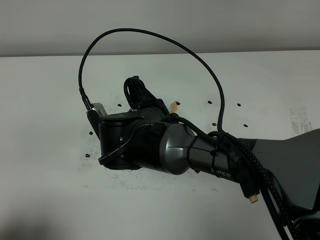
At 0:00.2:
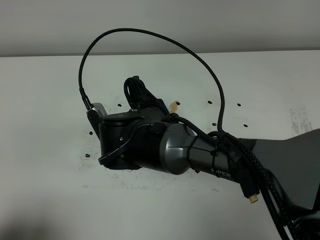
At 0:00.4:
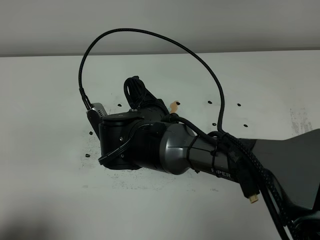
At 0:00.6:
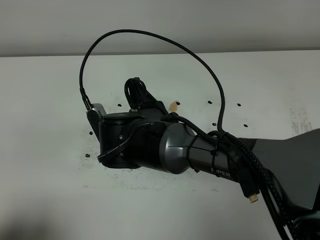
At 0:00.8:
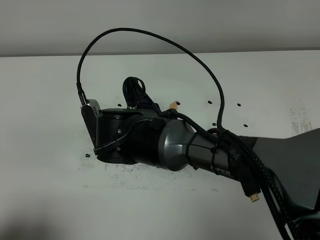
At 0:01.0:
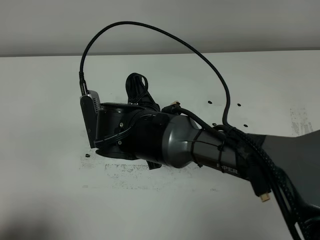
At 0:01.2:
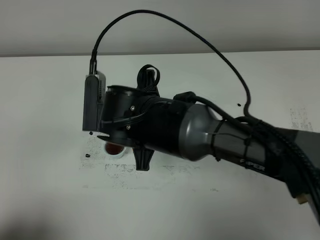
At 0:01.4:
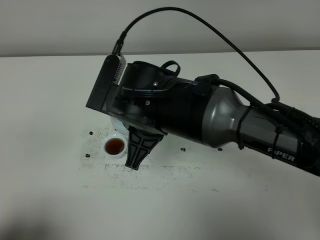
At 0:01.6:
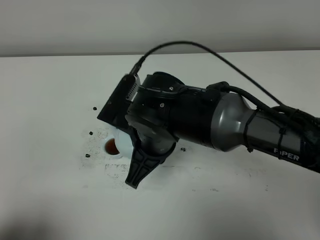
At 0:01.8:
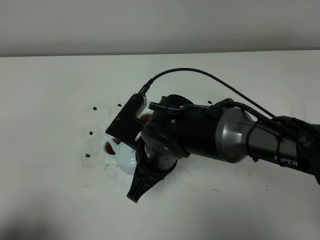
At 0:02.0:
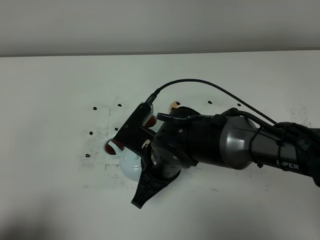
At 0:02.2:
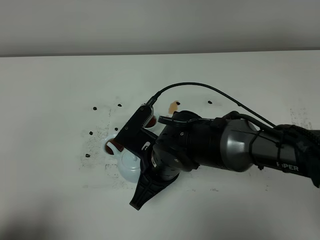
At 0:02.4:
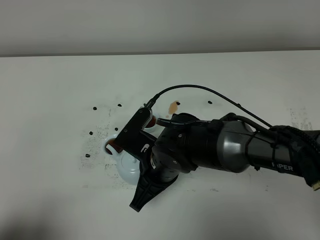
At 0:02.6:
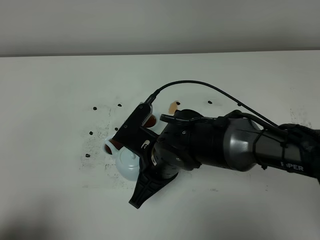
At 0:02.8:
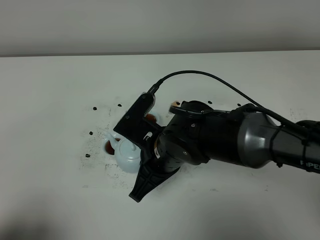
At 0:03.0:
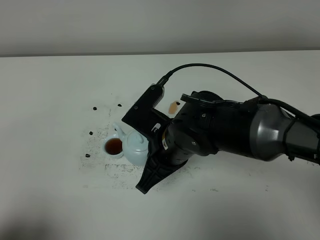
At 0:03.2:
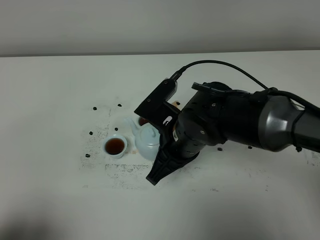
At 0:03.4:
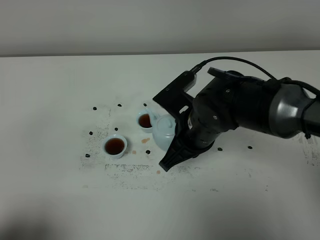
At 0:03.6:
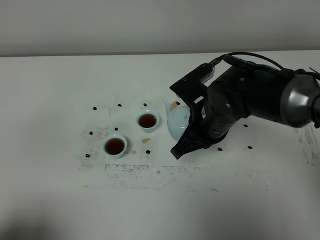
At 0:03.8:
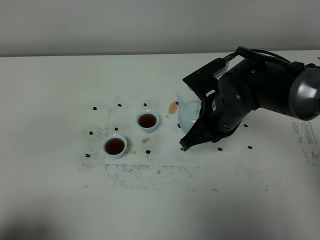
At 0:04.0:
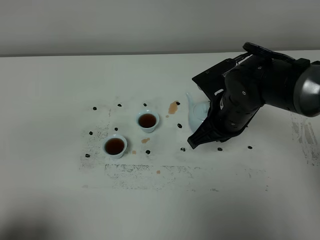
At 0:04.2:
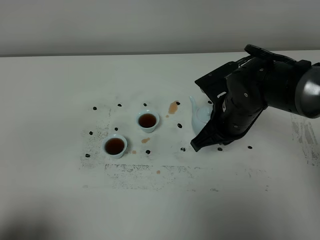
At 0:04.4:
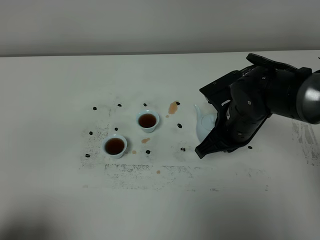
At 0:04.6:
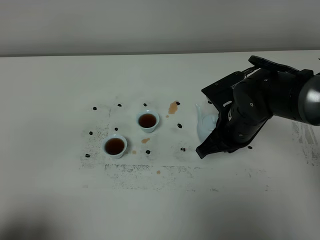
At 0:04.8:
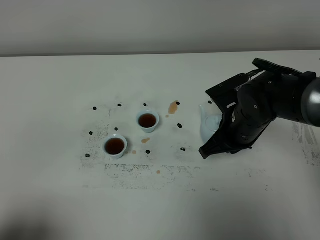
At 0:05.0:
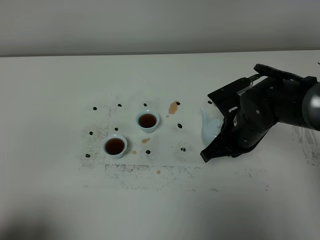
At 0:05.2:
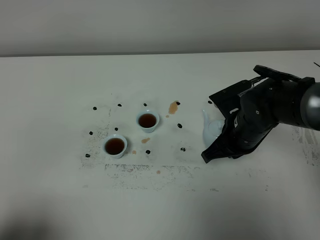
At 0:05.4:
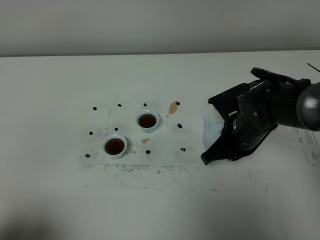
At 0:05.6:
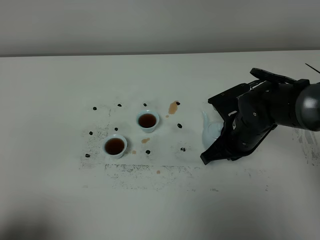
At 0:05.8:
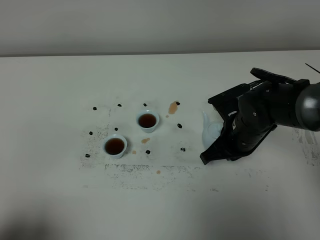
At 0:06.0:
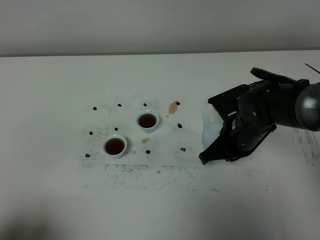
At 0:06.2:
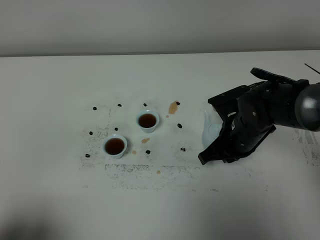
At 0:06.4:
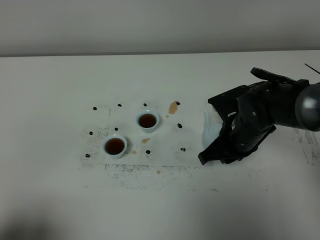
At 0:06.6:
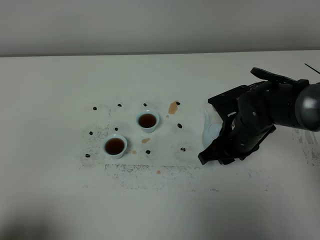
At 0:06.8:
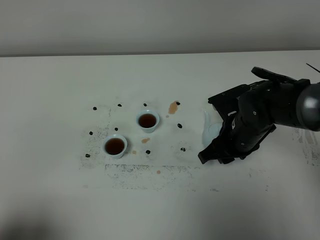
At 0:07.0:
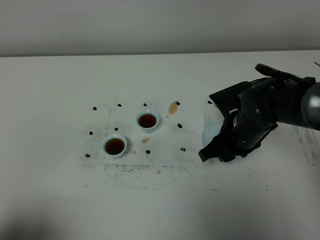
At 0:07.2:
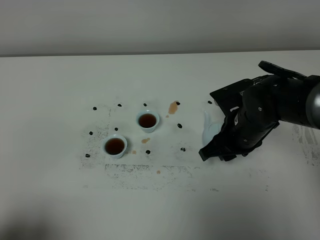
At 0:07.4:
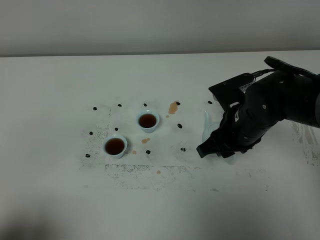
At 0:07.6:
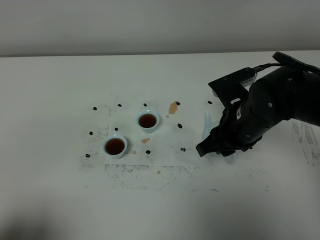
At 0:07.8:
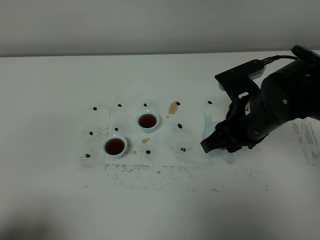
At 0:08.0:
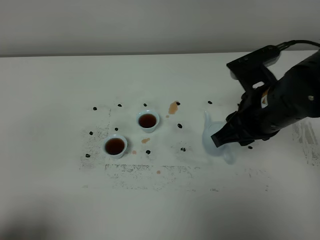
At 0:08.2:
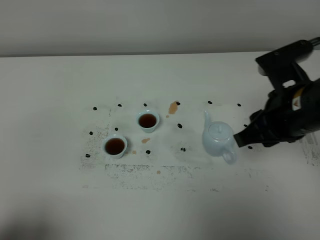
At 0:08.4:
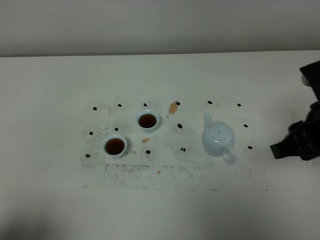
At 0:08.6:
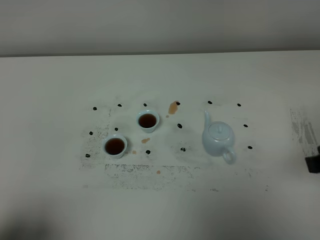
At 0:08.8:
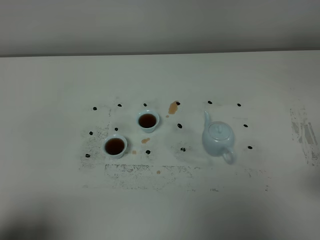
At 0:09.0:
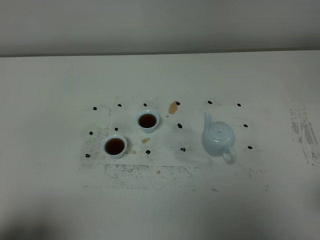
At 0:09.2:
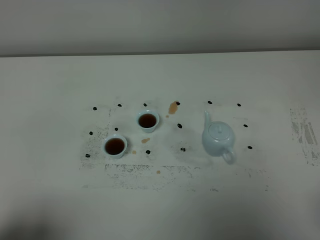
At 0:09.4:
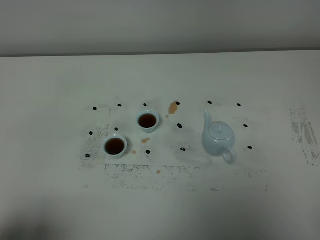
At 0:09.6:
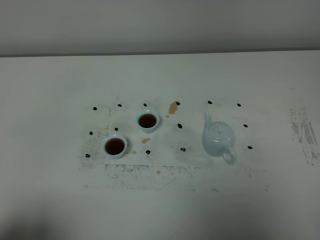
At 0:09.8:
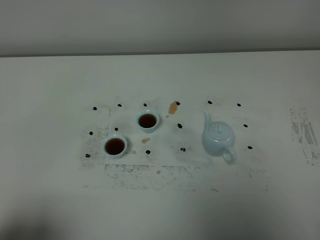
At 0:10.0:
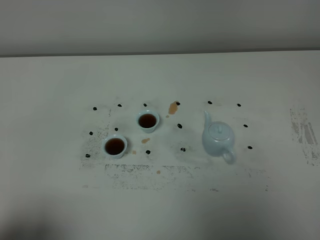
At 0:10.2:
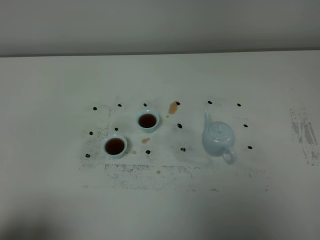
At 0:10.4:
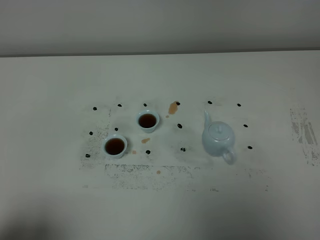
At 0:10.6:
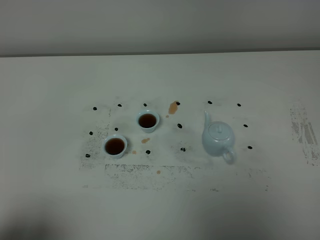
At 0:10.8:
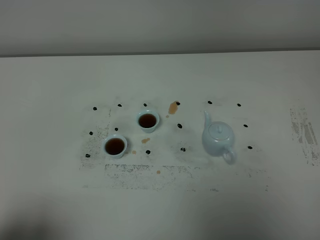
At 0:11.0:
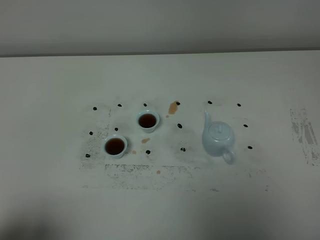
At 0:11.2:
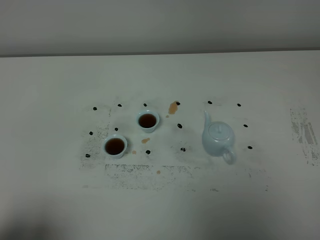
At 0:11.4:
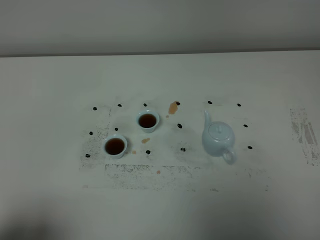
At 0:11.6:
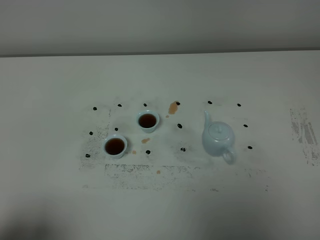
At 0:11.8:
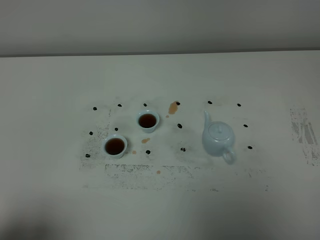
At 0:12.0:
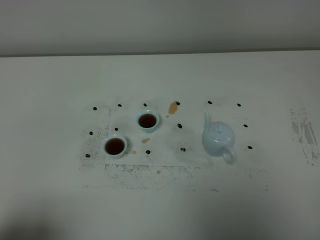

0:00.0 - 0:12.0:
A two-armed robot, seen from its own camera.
Task of the whole recording: grasp the blue porcelain teapot and pour the tea into the two blue porcelain teacups one by one, put the blue porcelain teapot back in its original place.
0:03.0 - 0:04.4: The right gripper moves to the right, approximately 10 cm.
0:04.4 - 0:06.0: The grippers move only a little.
0:06.0 - 0:07.6: The right gripper heads upward, covering roughly 5 cm, and opens up.
0:07.6 - 0:09.0: The right gripper moves backward, to the right and upward, roughly 30 cm.

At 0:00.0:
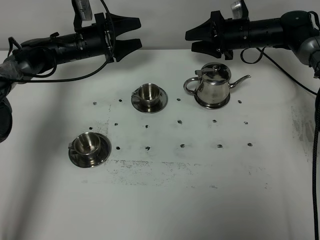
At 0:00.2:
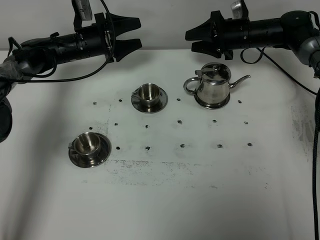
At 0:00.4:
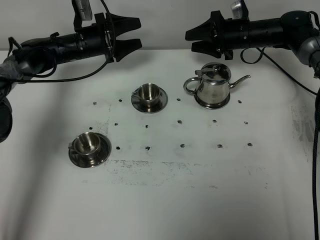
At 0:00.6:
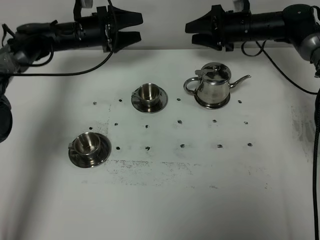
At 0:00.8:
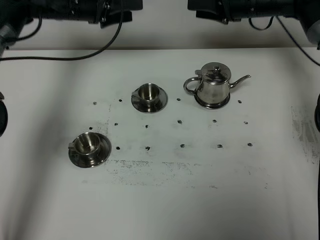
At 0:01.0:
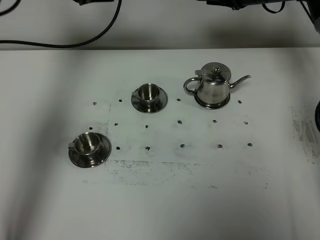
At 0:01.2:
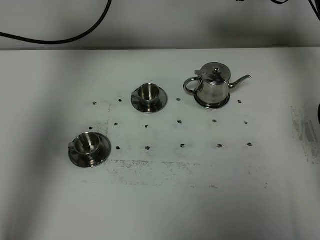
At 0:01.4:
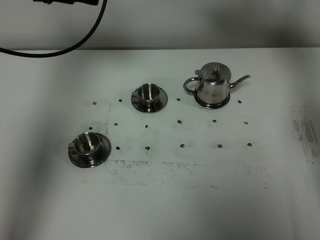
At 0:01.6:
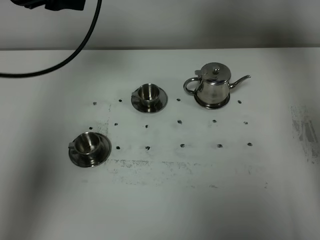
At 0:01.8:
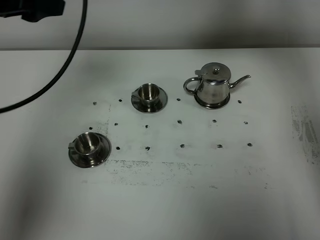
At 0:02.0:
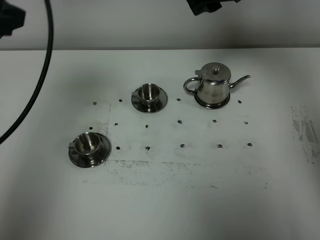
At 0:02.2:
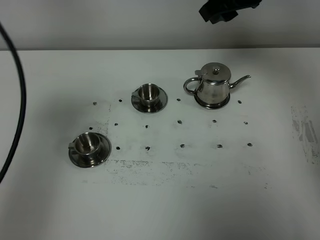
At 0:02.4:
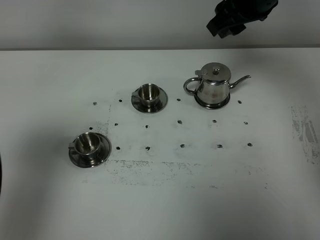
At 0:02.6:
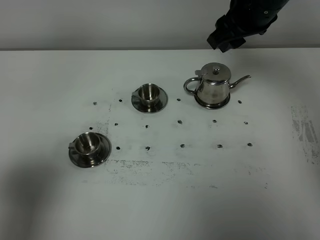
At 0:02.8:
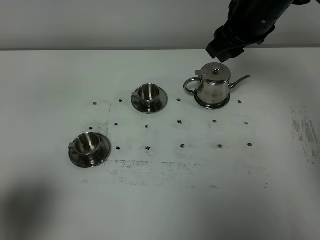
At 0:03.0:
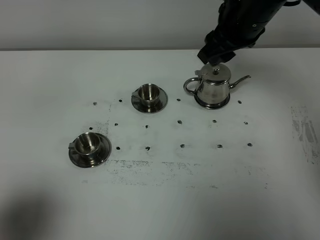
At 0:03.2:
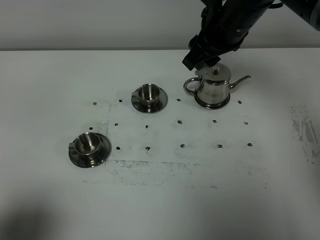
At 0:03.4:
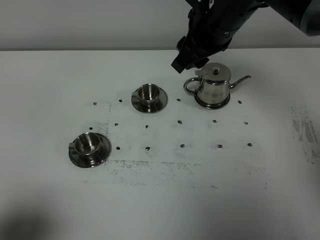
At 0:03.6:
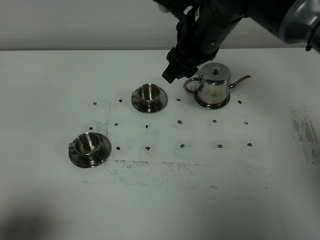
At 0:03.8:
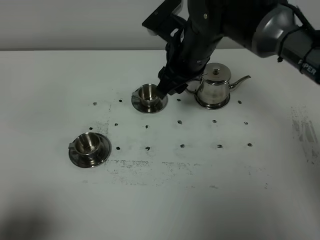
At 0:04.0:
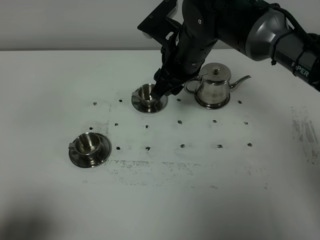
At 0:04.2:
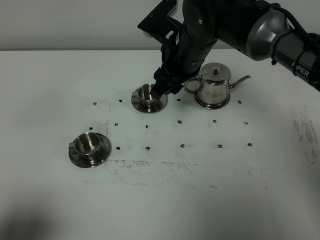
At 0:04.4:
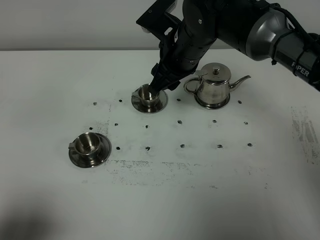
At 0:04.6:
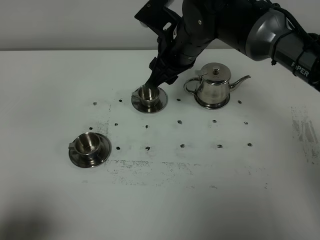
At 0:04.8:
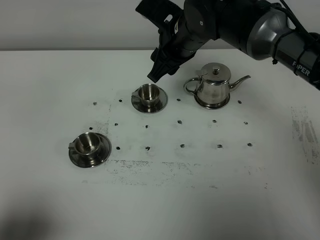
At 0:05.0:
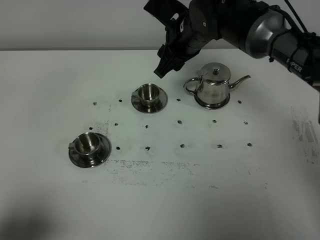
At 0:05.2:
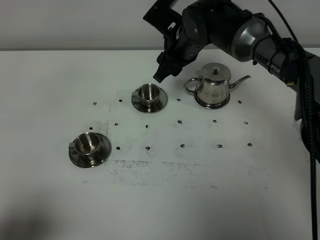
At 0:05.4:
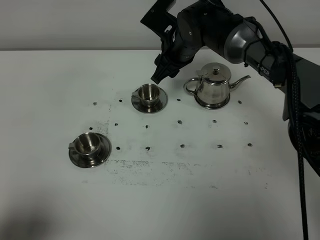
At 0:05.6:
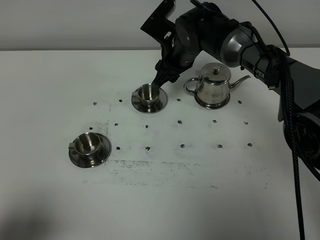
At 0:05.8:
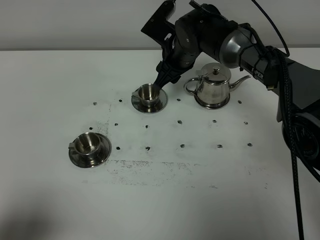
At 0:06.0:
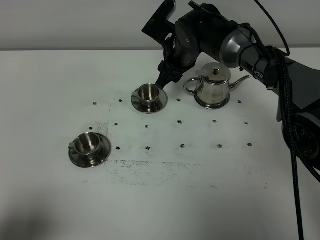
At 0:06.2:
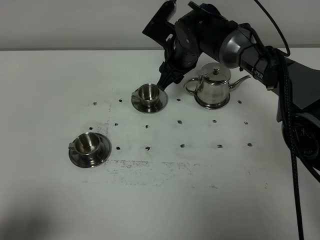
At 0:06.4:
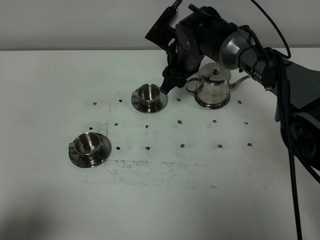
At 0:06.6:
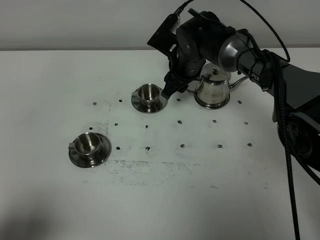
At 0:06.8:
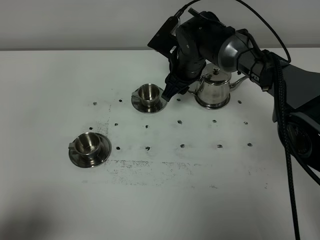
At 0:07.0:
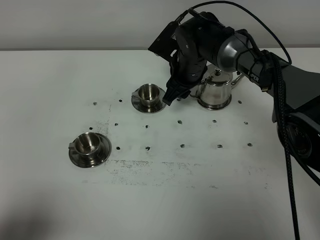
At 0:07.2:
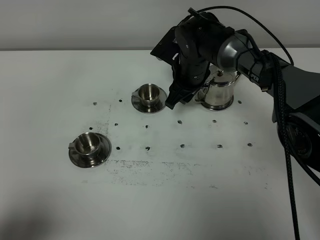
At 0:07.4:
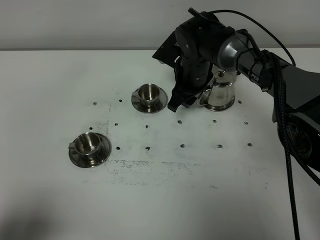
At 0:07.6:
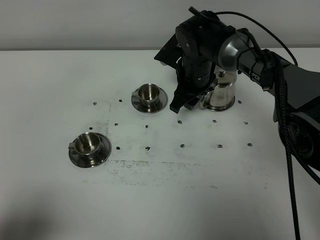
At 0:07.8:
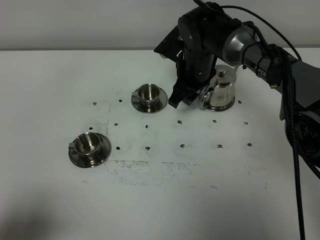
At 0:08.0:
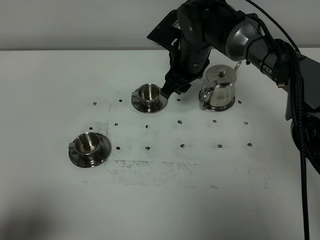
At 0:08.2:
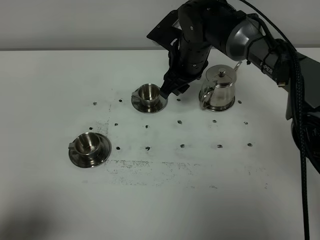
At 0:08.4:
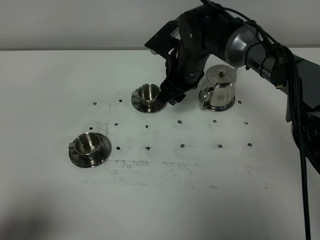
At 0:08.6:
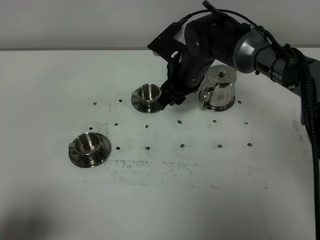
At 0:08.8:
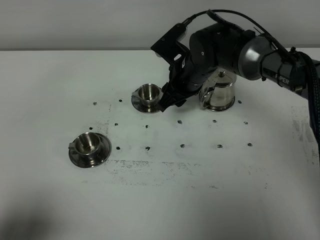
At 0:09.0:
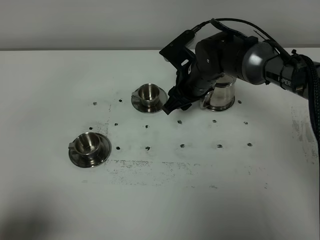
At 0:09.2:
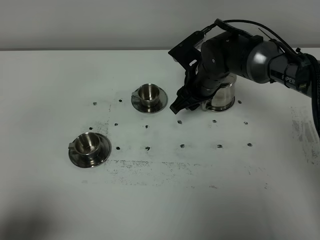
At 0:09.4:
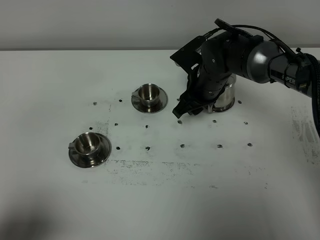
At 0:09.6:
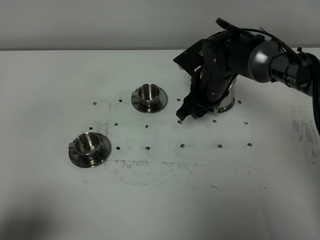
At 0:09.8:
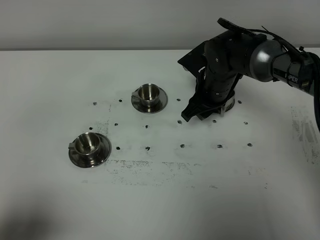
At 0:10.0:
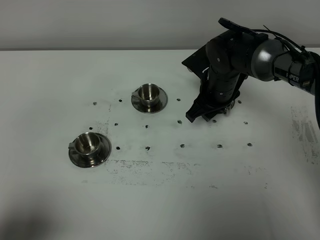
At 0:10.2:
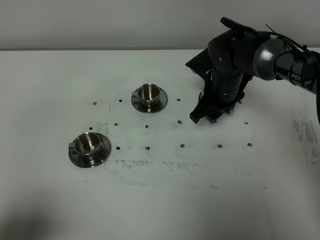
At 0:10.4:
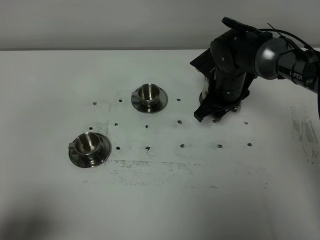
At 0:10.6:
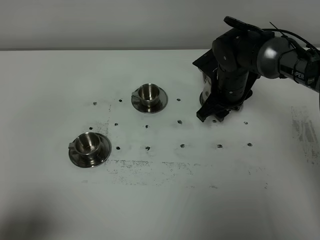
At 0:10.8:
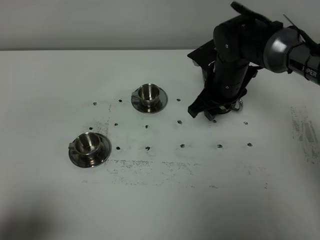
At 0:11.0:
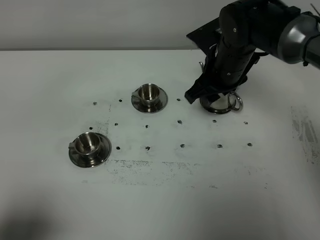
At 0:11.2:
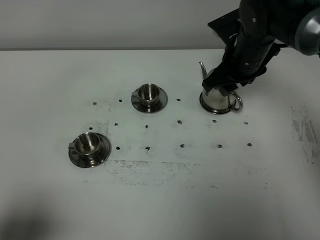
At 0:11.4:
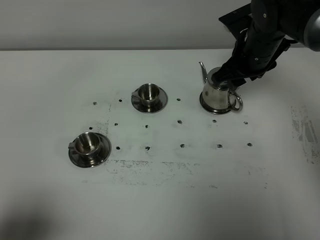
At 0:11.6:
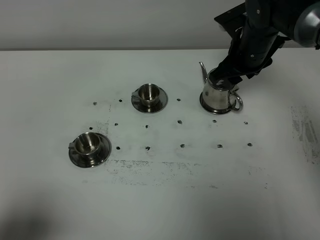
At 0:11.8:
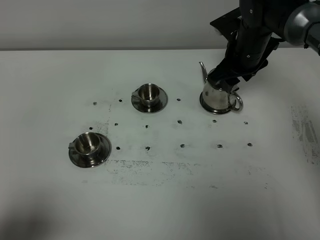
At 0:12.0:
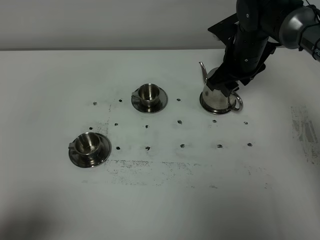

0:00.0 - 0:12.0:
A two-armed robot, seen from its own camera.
Task of the whole recording: grasp the stainless steel teapot and pour the tea into the two stainless steel teacups one by one, put the stainless steel teapot back in its original place.
0:00.0 - 0:01.6: The left gripper shifts roughly 30 cm upward and backward, and closes its fingers, while the right gripper is displaced upward by about 25 cm.
0:01.6 - 0:03.0: The left gripper shifts roughly 35 cm backward, and closes up. The right gripper shifts approximately 10 cm backward.
0:03.0 - 0:04.4: The right gripper goes roughly 10 cm to the left and downward.
0:04.4 - 0:06.0: The right gripper travels forward and downward by some 10 cm.
0:07.6 - 0:09.0: The grippers move only a little.
0:09.0 - 0:10.4: The right gripper shifts approximately 5 cm to the right.
0:10.4 - 0:12.0: The right gripper moves about 5 cm.
